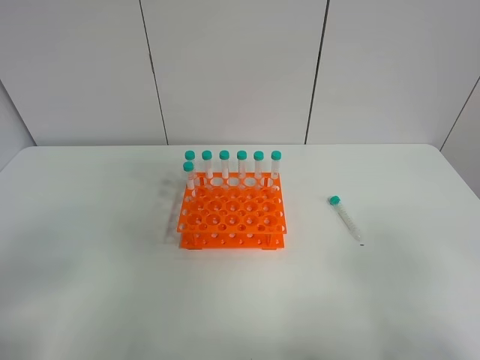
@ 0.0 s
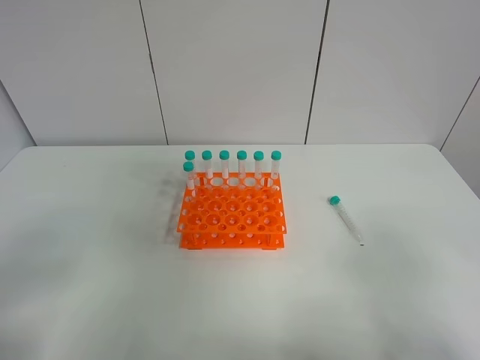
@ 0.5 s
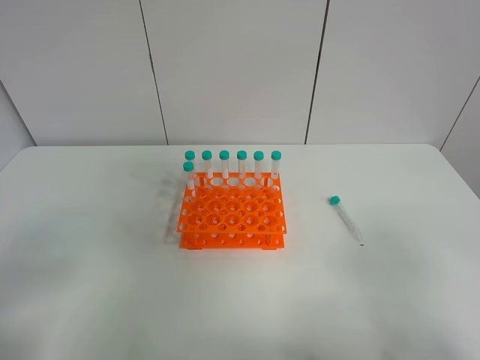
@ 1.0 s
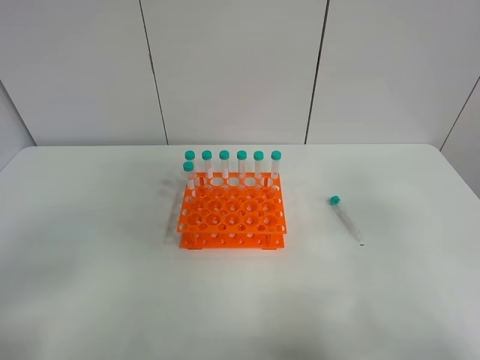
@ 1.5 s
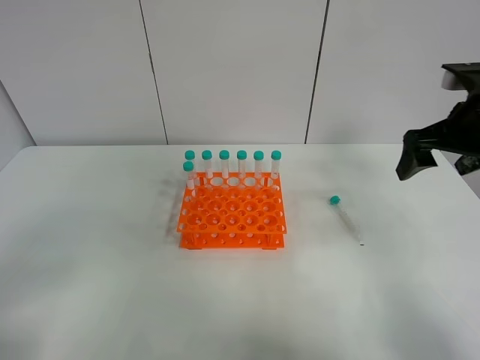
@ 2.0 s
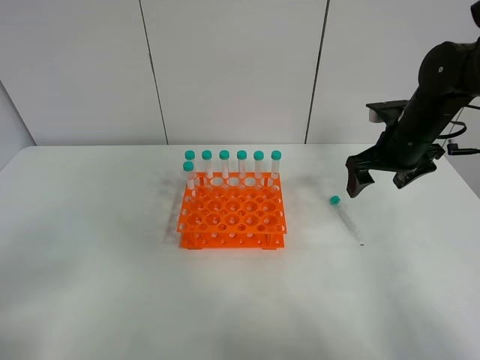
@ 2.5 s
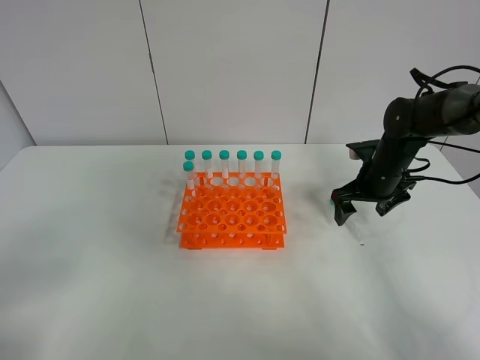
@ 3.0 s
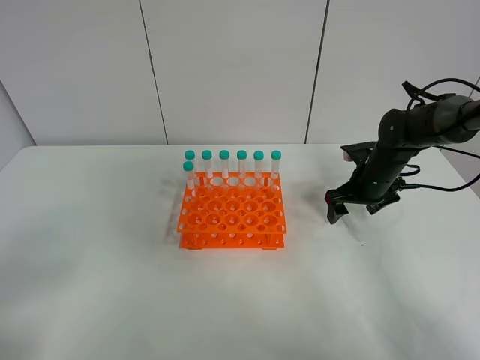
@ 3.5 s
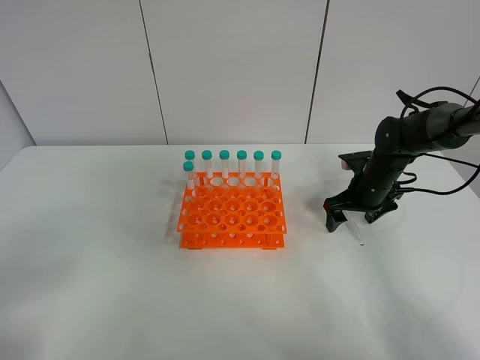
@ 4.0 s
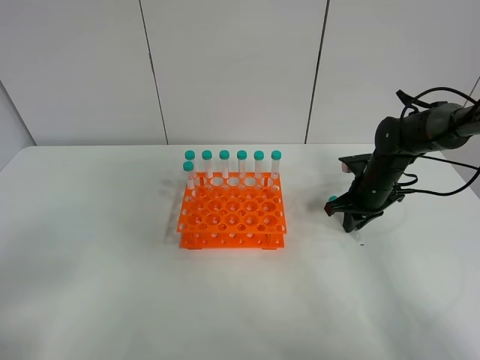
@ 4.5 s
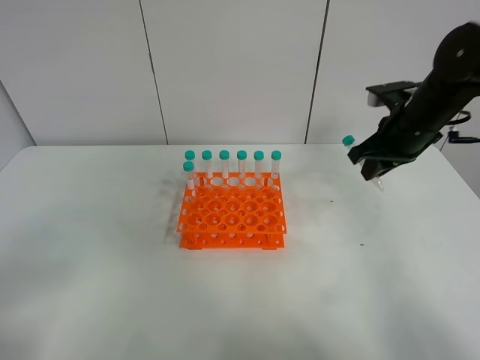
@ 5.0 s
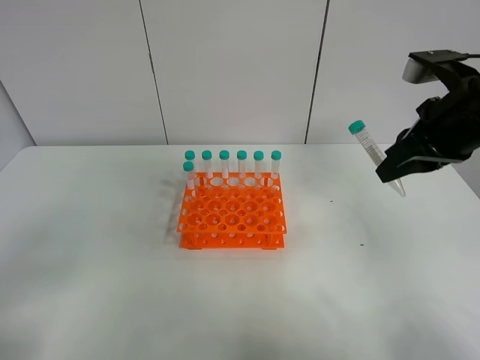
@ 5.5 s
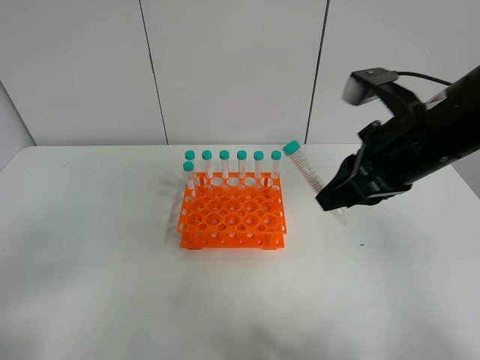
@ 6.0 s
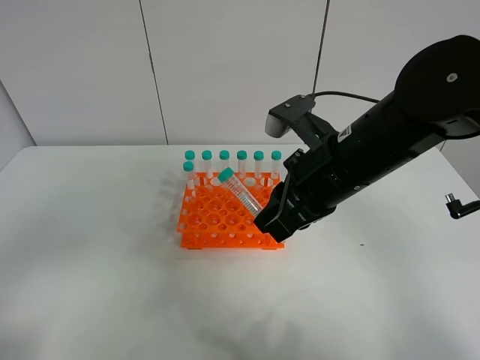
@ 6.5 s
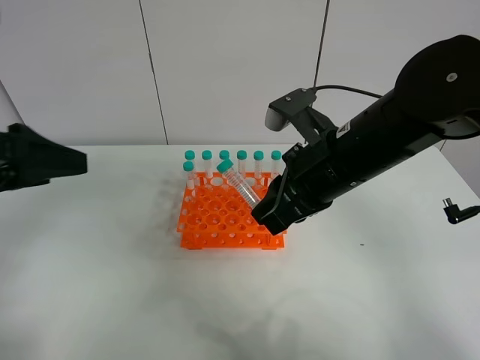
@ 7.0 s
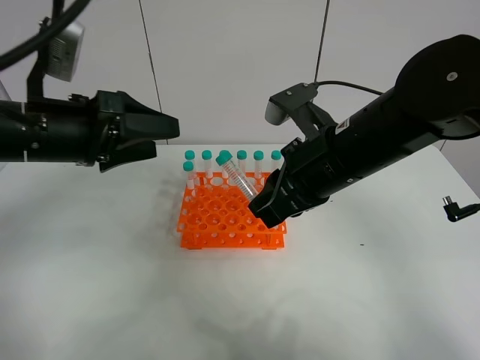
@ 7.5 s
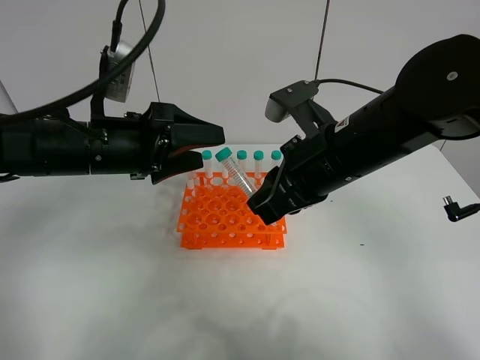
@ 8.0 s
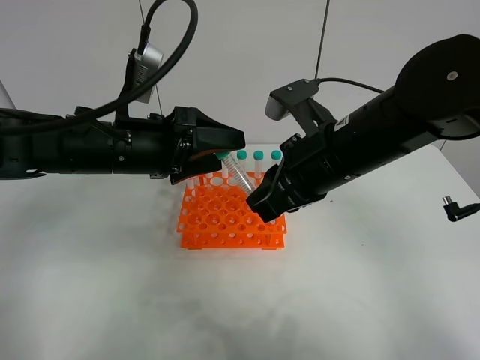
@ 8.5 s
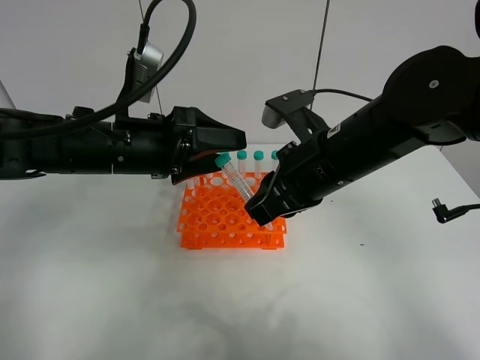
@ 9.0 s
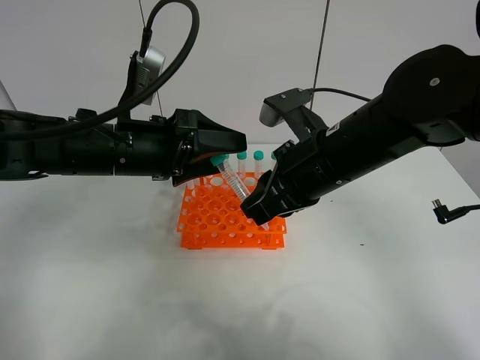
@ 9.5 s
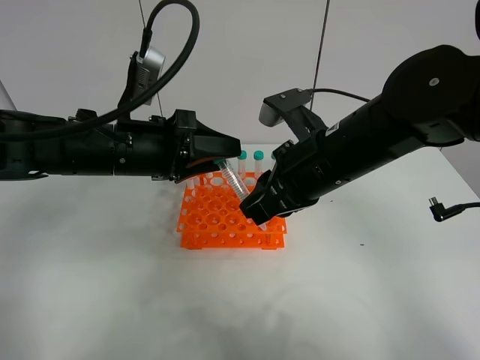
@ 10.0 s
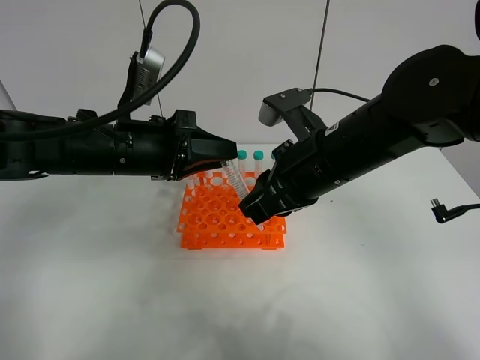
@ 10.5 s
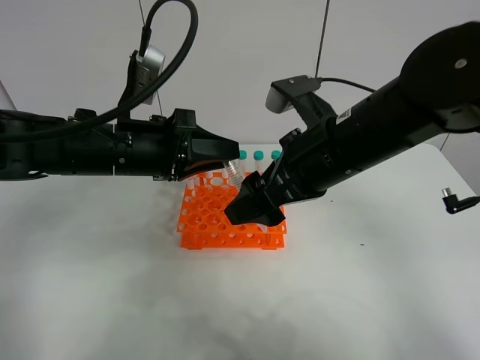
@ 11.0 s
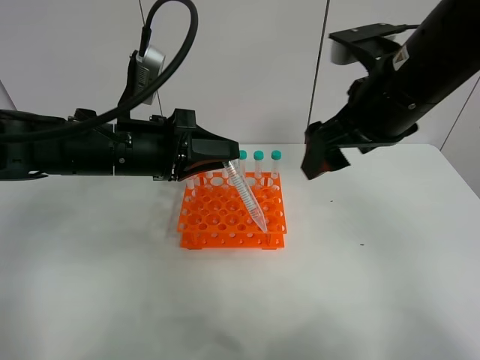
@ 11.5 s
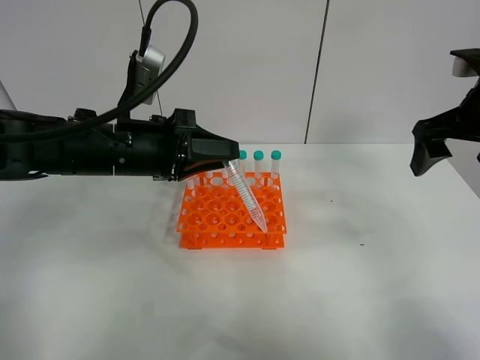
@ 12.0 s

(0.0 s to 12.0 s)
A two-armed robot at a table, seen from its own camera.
Task of the whole recording: Put the test tube on the table back onto the test tube rack.
Step, 0.0 s - 5.0 s: Pick up the test tube with the right gripper.
Step, 5.5 s - 11.5 s: Move the test tube from the right gripper to the left gripper.
0.0 s - 2.0 s: The right gripper shifts roughly 30 cm forward.
2.0 s - 4.0 s: The right gripper moves downward and forward, about 20 cm.
4.0 s - 6.0 s: The right gripper is displaced upward, backward and to the left by approximately 25 cm, and closes its fingers.
6.0 s - 8.0 s: The left gripper shifts about 30 cm forward and to the right. The right gripper goes some 5 cm to the left.
8.0 s - 10.0 s: The left gripper closes its fingers.
10.0 s - 12.0 s: The right gripper moves to the right, about 20 cm, and opens.

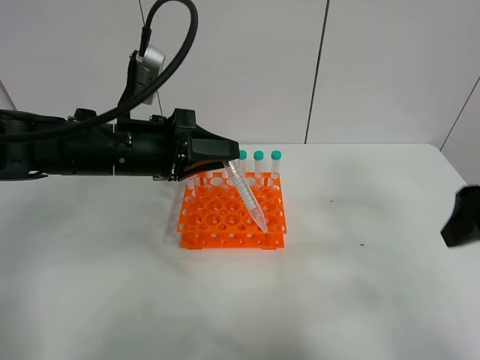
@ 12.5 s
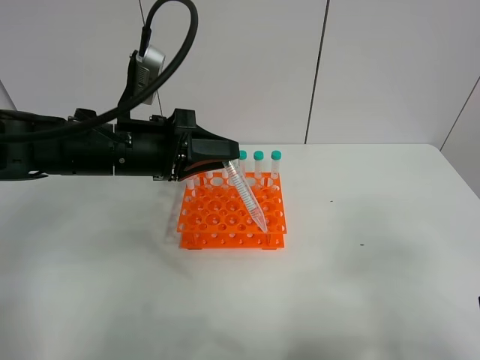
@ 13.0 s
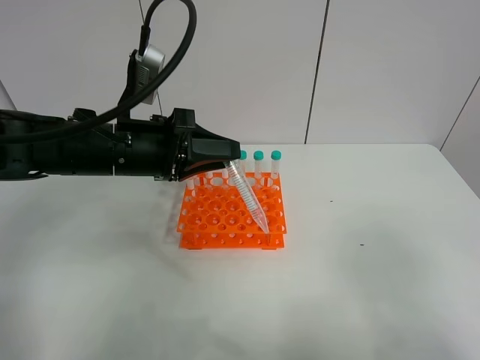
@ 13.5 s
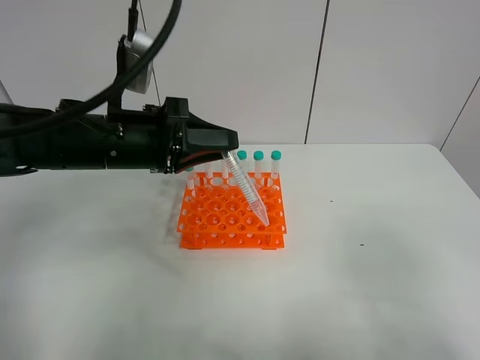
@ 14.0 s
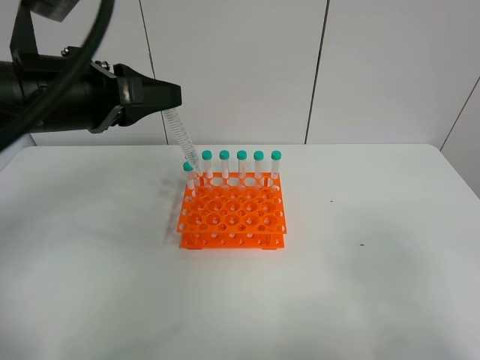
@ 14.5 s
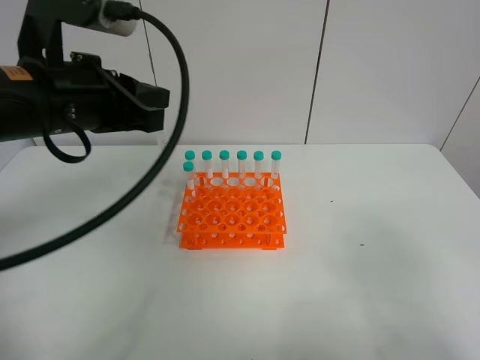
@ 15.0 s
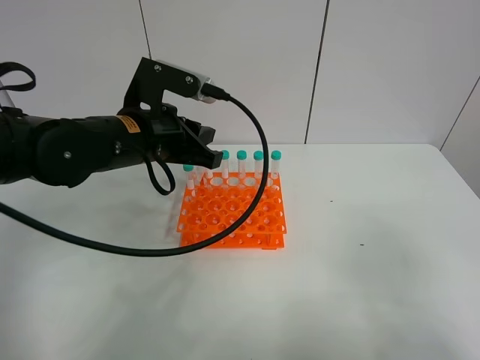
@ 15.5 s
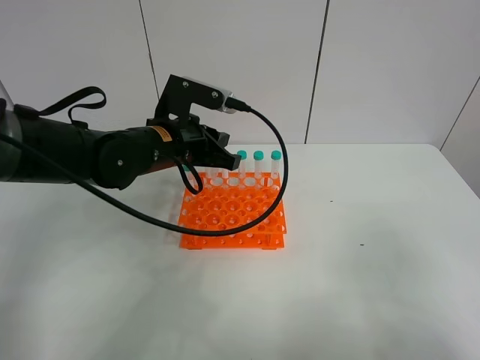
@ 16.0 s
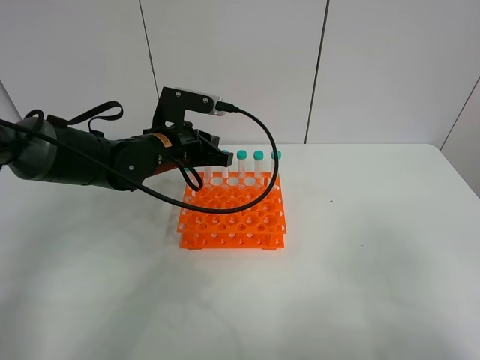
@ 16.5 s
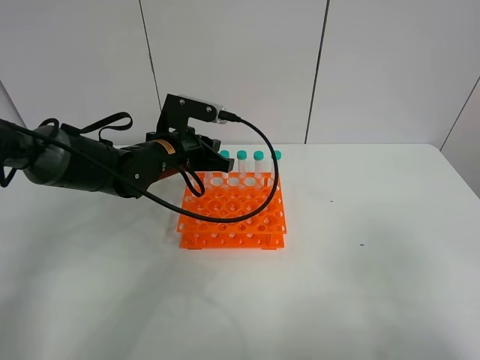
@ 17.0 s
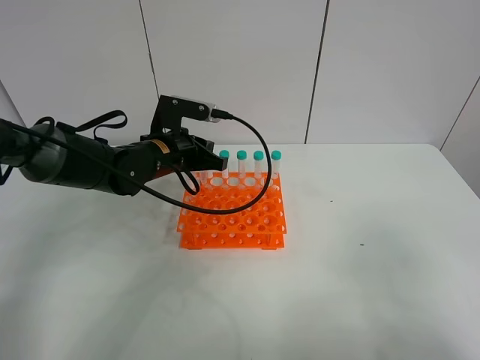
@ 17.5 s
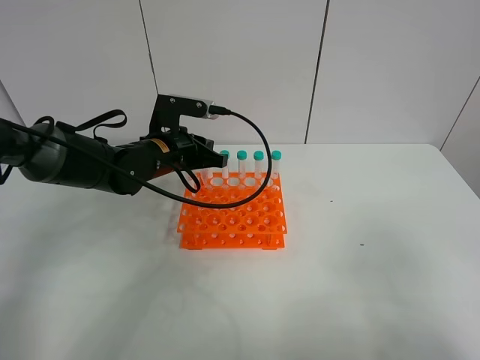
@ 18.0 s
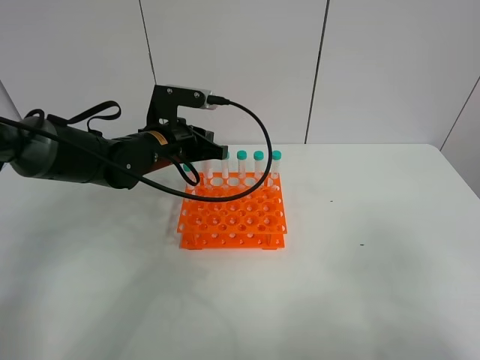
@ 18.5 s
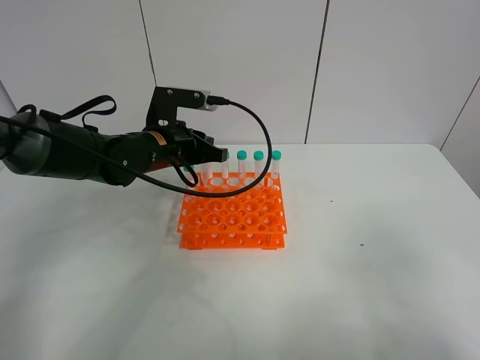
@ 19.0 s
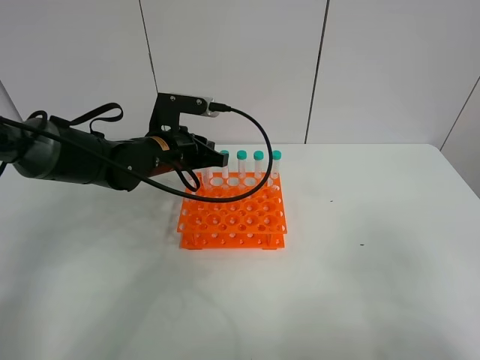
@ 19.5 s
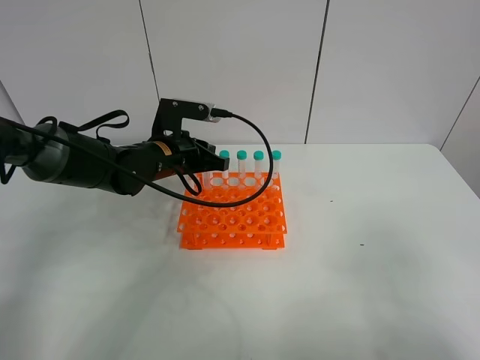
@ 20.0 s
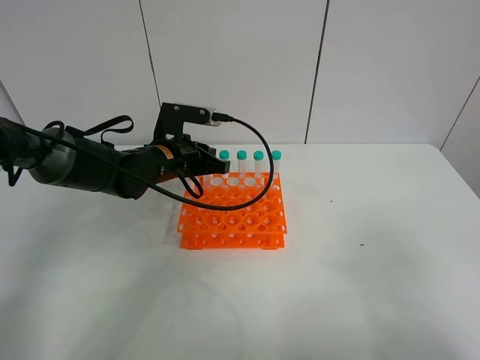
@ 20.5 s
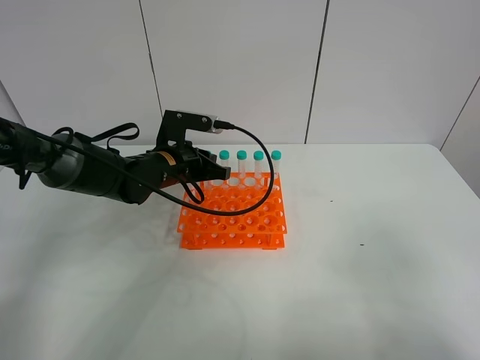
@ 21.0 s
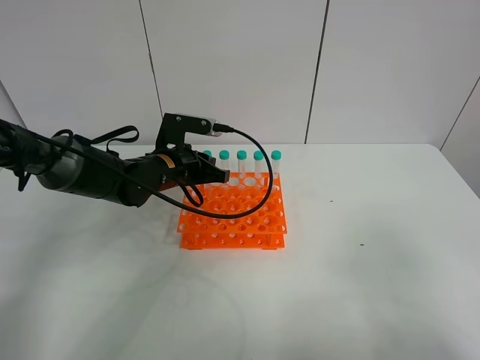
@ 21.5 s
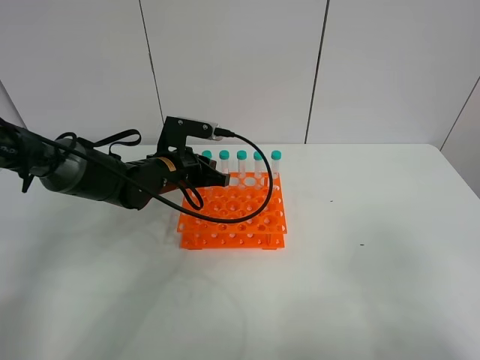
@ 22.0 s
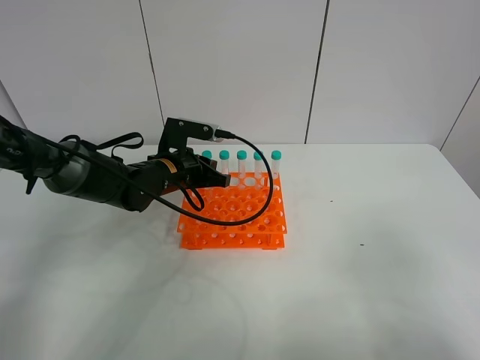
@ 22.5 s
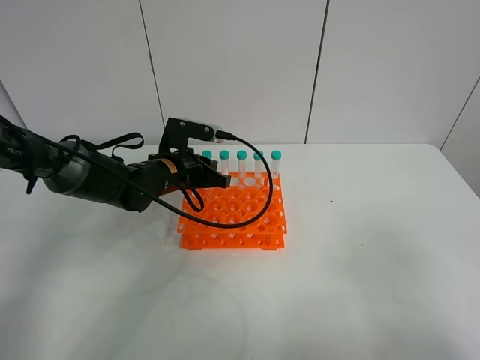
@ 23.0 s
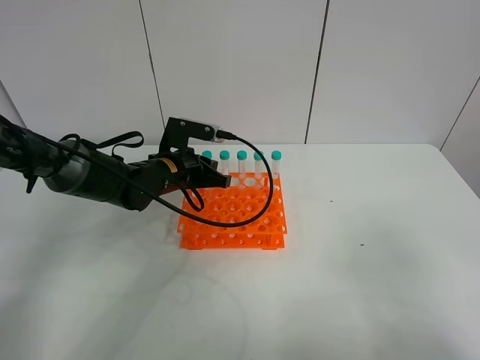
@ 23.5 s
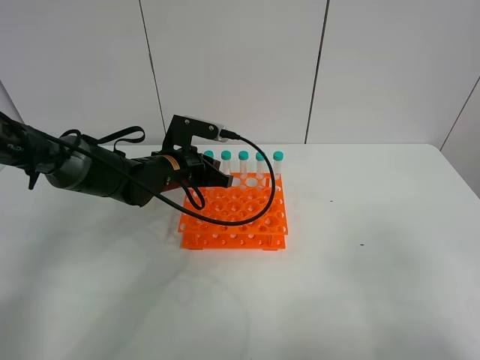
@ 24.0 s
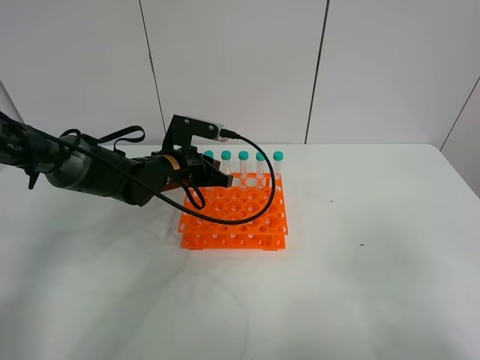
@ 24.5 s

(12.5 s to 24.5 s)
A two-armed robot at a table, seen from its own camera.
Task of the whole recording: Put the test tube on the table back onto the test tube rack.
12.5 s - 14.5 s: The right gripper shifts roughly 15 cm backward. Meanwhile the left gripper heads upward, covering approximately 10 cm.
14.5 s - 16.5 s: The left gripper moves downward, forward and to the right, some 20 cm.
16.5 s - 22.5 s: There are only small adjustments of the grippers.
22.5 s - 24.5 s: Neither gripper changes place.

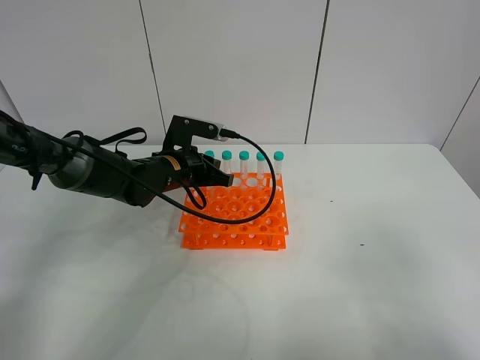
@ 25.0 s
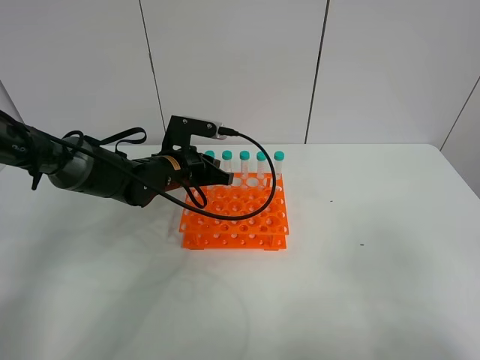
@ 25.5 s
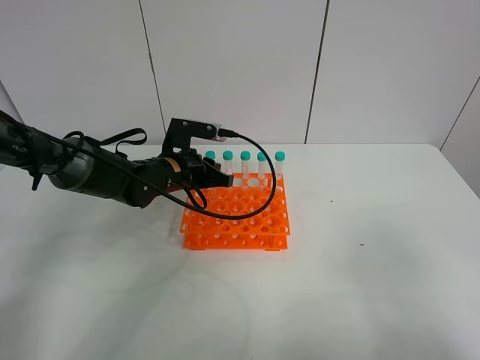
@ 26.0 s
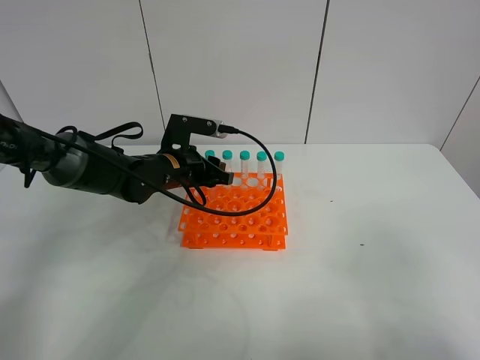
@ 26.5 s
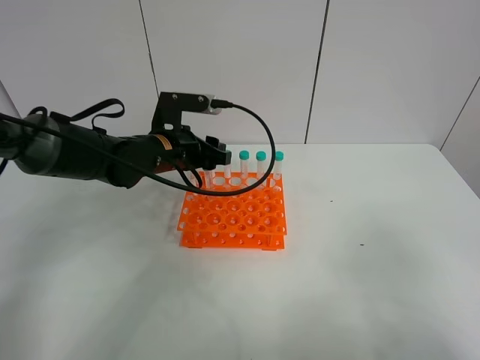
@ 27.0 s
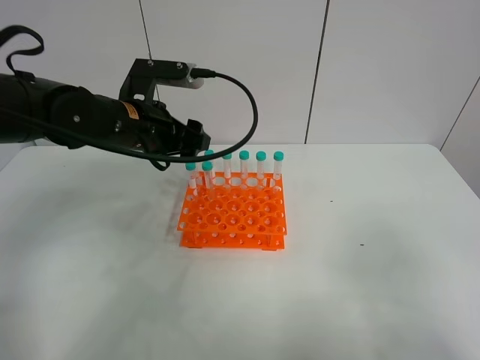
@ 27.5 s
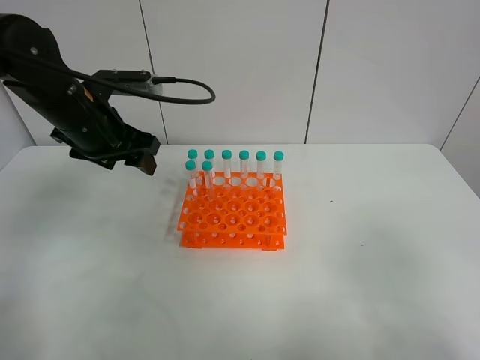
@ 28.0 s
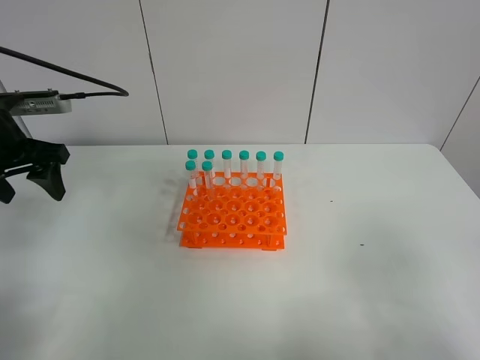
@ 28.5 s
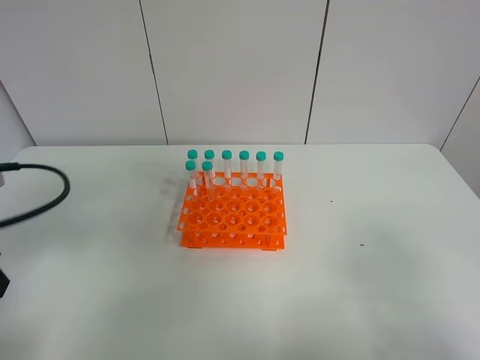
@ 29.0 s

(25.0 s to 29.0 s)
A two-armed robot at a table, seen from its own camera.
Task of the whole recording: Put the test tube on the table back onto the test tube rack.
Step, 25.0 s - 27.5 s: Place the test tube on the test tube rack with the left gripper.
25.0 s - 27.0 s: The left gripper moves upward, approximately 5 cm, and opens up.
27.0 s - 29.0 s: The left gripper heads backward and to the left, covering approximately 30 cm.
